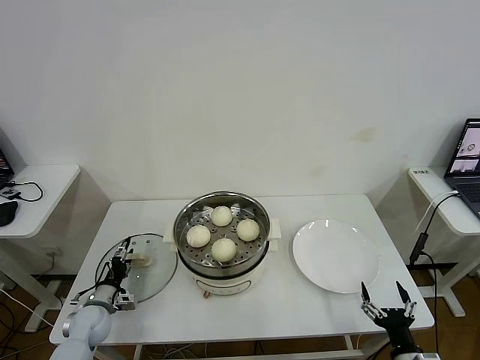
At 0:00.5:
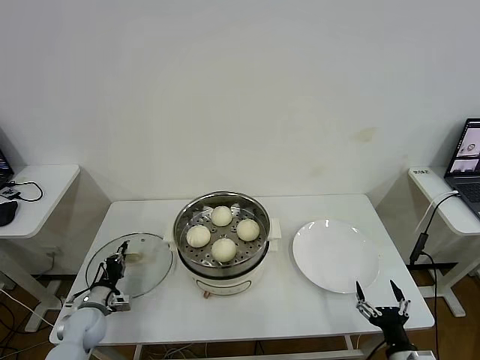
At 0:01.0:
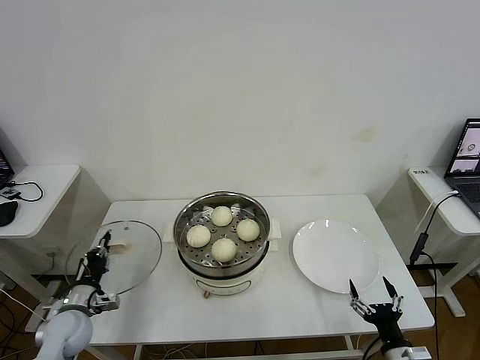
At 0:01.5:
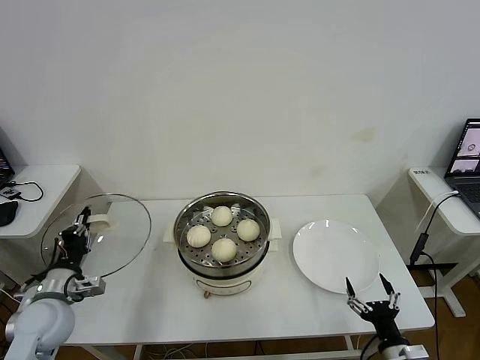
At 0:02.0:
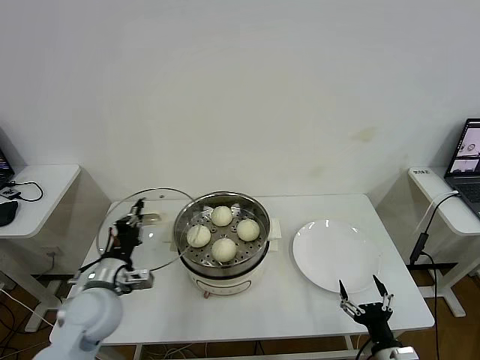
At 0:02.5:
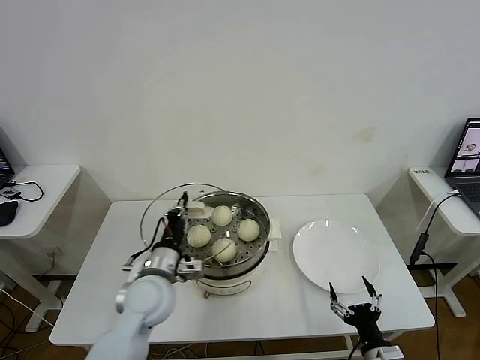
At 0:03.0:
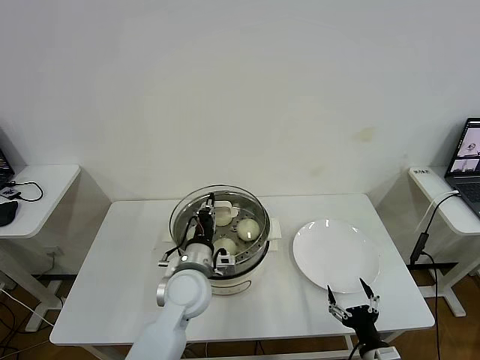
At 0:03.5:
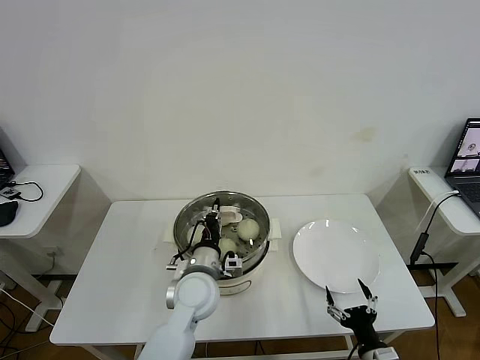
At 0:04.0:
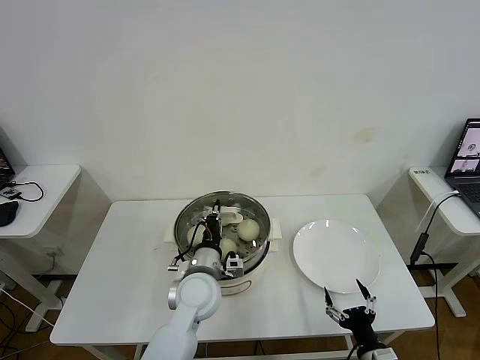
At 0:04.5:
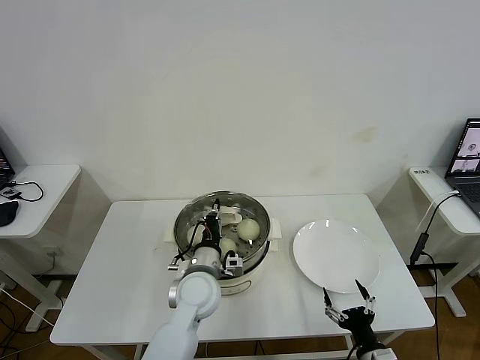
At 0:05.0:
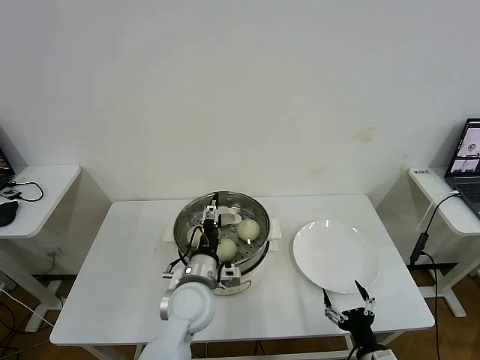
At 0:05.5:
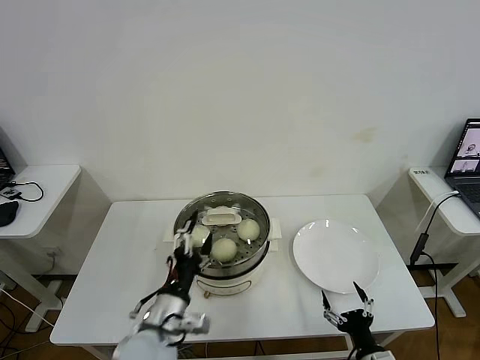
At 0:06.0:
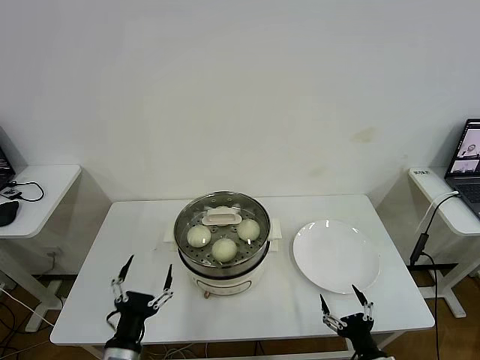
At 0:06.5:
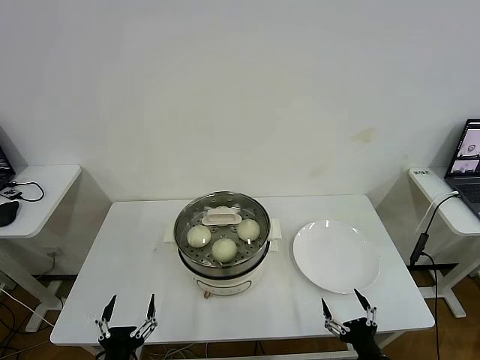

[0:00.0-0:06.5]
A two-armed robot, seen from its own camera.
Task of the whole recording: take steamed baozi put them in steamer then cover it.
Step, 0:01.0 to 0:05.0: Place the pot lid on the steamer with left gripper.
0:00.0 to 0:02.0: The left gripper heads upward and to the right, covering roughly 20 cm, and closes its fingers.
0:02.0 to 0:04.5: The left gripper goes some 20 cm to the right.
0:04.5 to 0:06.5: The left gripper moves backward and to the left, approximately 30 cm, and opens its fingers.
